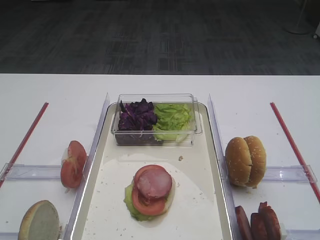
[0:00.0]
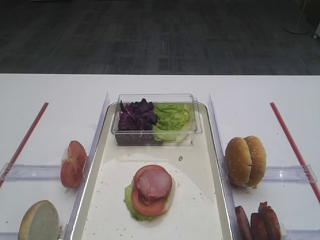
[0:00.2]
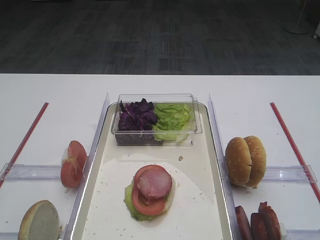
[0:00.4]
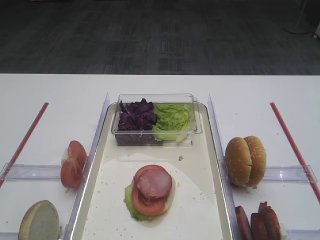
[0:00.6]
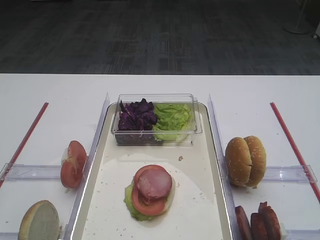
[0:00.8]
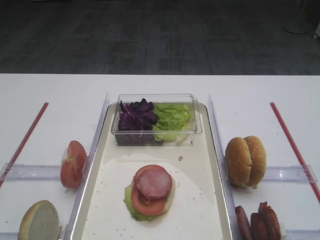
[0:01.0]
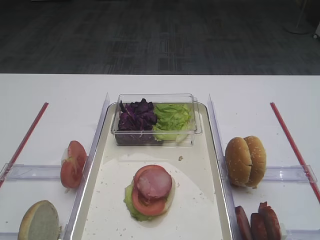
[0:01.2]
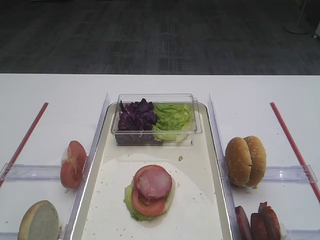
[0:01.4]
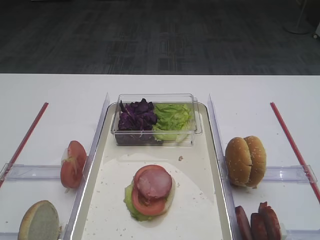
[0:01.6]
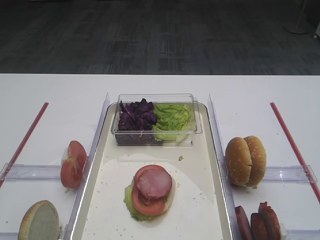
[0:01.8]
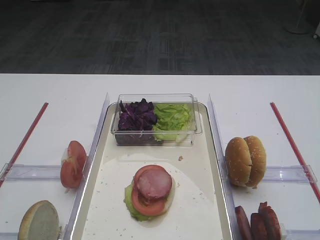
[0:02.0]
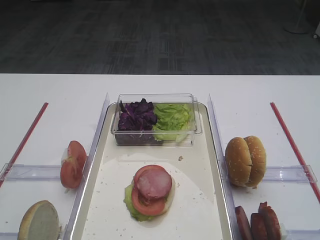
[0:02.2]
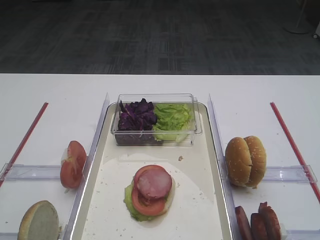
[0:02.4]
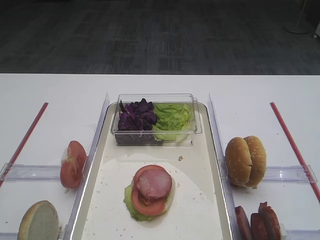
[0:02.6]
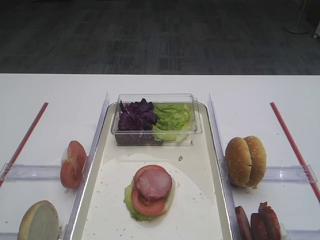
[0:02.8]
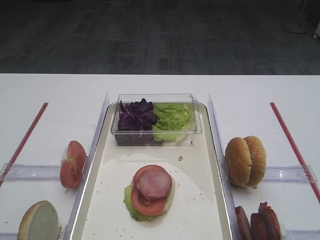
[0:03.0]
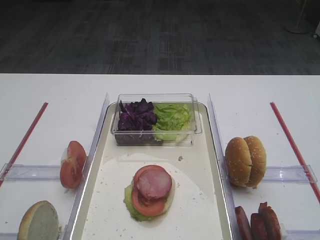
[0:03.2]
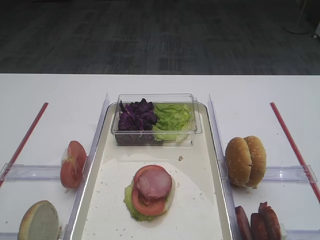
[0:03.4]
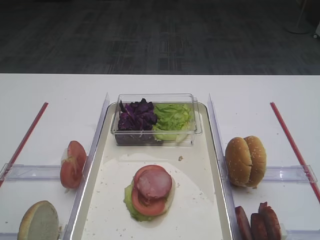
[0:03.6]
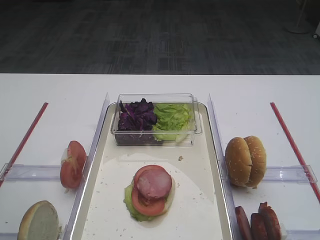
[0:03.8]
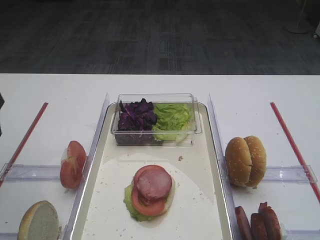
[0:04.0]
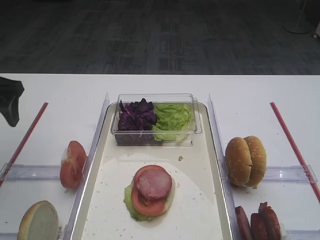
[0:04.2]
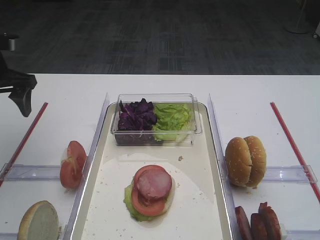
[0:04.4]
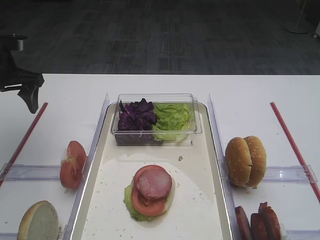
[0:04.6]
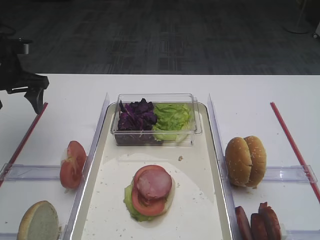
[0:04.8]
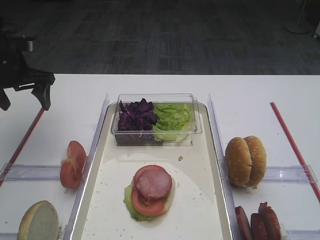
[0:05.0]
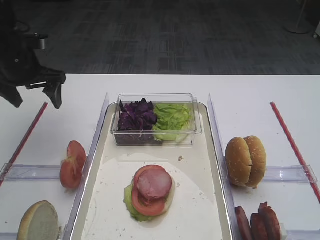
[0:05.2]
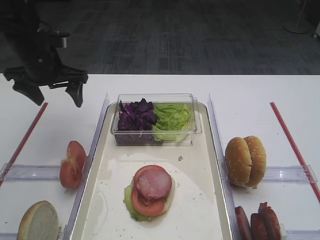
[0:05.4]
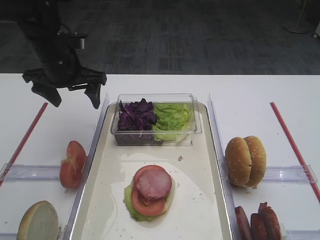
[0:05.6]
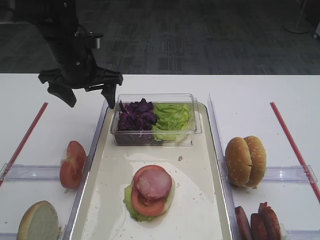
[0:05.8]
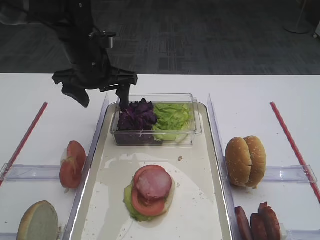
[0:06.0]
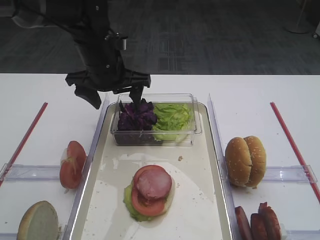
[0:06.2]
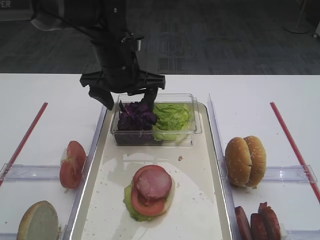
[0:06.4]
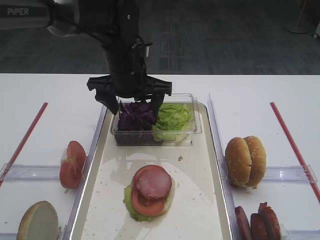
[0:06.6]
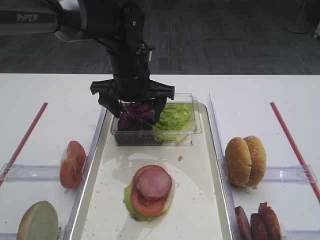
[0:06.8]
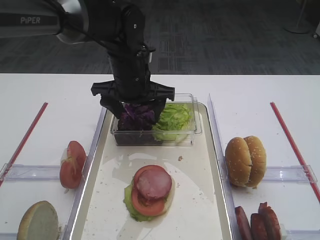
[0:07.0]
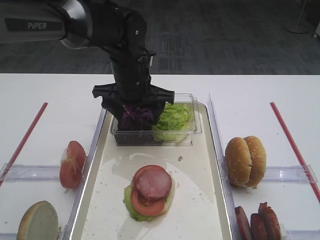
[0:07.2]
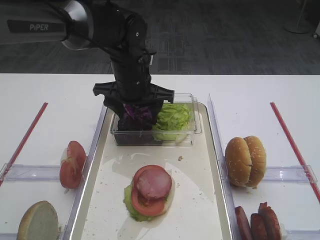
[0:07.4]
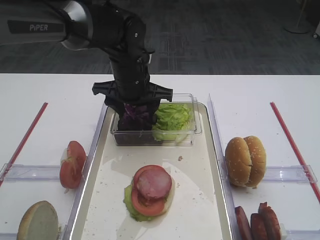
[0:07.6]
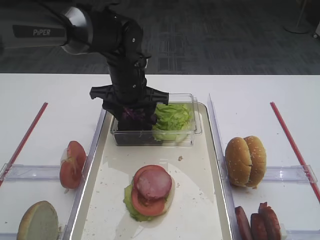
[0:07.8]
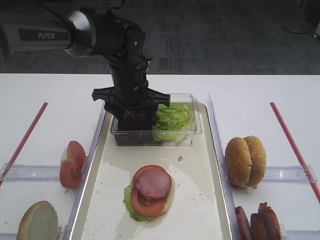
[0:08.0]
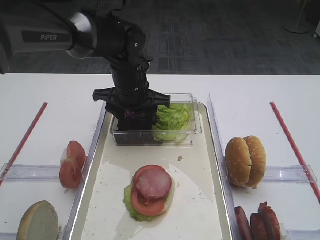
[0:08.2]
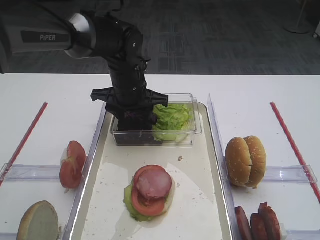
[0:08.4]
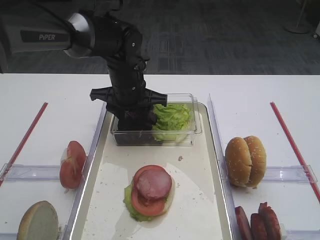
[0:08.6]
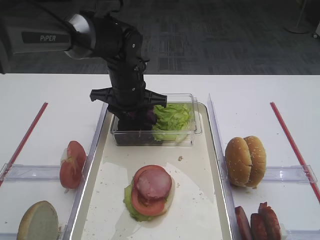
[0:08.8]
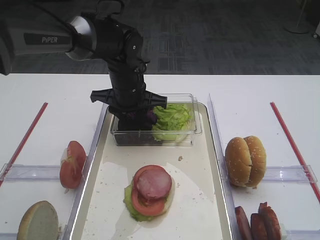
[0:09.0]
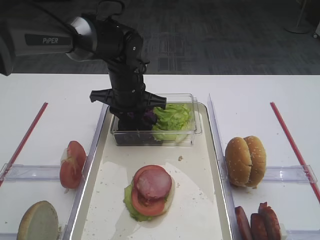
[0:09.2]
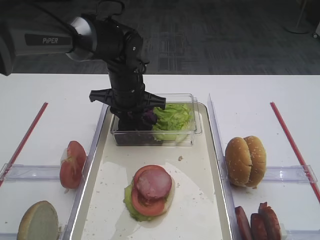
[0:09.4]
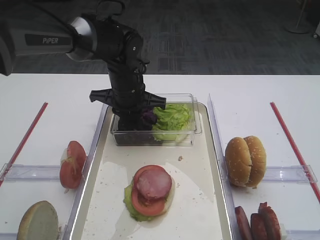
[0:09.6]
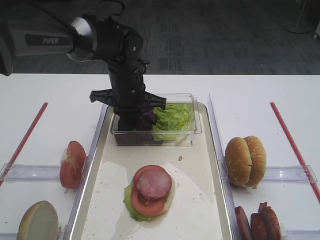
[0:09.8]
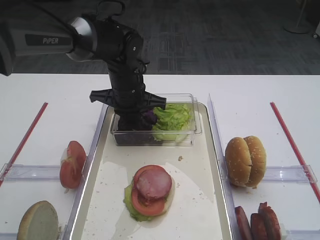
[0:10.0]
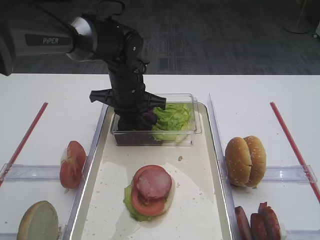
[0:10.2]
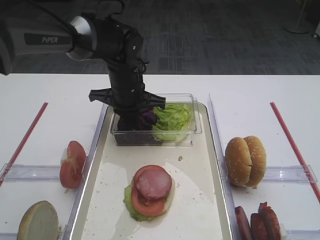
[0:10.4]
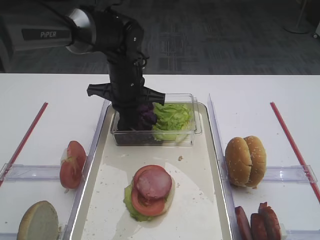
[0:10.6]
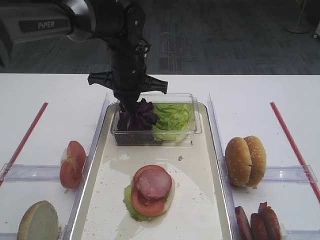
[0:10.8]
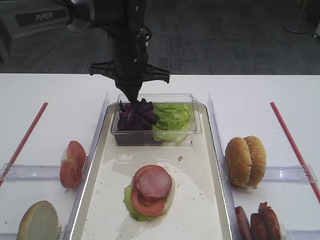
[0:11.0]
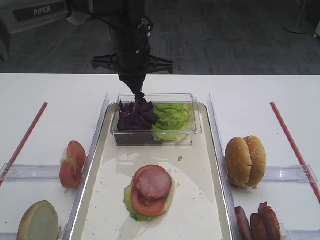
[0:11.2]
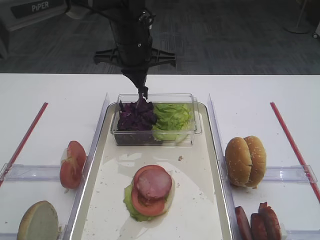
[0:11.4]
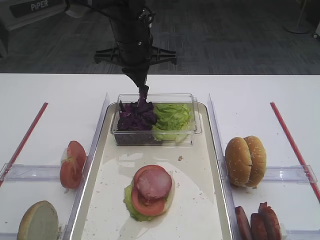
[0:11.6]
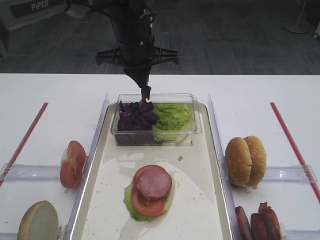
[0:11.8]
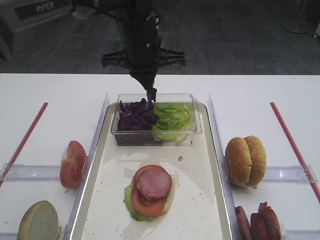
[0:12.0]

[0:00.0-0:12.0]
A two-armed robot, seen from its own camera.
0:03.0 to 0:04.4: The left gripper is displaced forward by approximately 30 cm.
0:04.4 to 0:06.0: The left gripper travels to the right by about 15 cm.
0:06.0 to 0:07.6: The left gripper moves to the right, approximately 5 cm.
0:07.6 to 0:09.0: The grippers stay close to where they were, moving slightly.
0:10.4 to 0:12.0: The left gripper heads upward, covering some 10 cm.

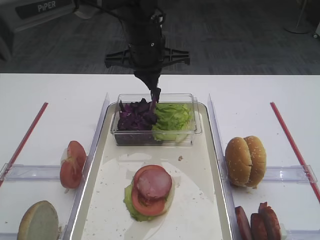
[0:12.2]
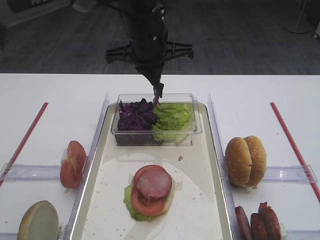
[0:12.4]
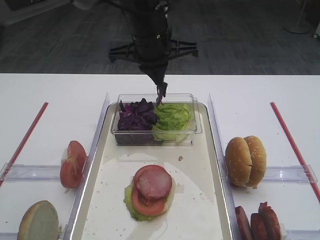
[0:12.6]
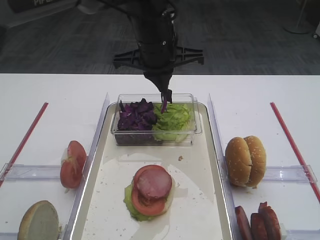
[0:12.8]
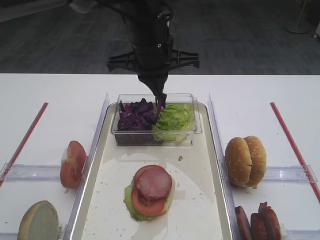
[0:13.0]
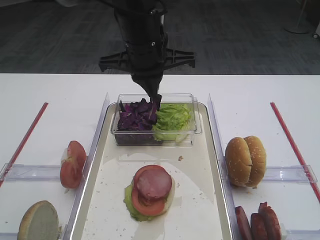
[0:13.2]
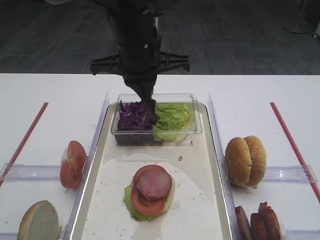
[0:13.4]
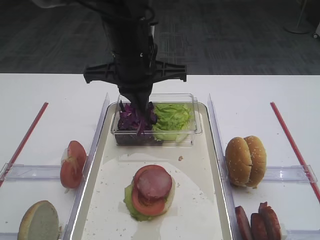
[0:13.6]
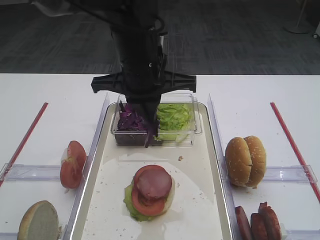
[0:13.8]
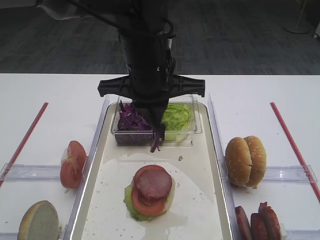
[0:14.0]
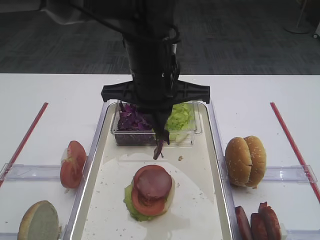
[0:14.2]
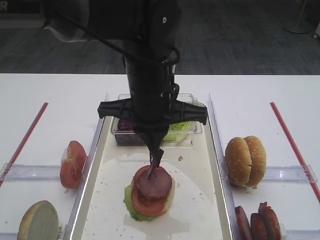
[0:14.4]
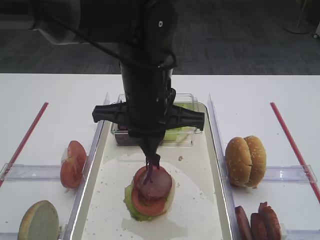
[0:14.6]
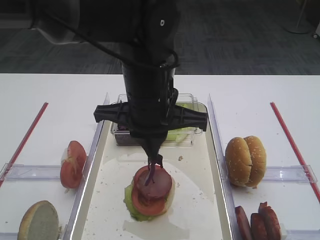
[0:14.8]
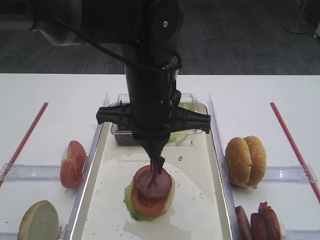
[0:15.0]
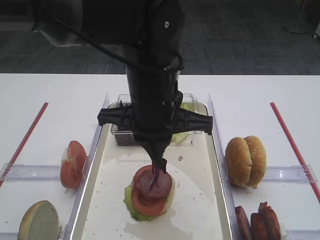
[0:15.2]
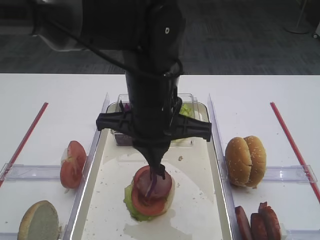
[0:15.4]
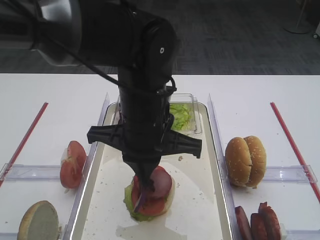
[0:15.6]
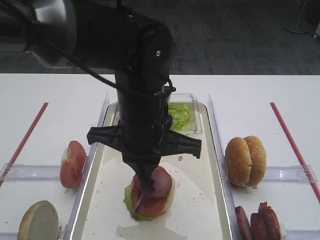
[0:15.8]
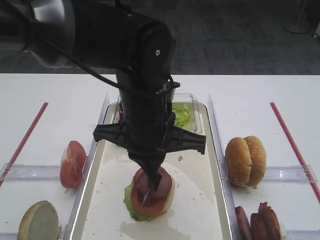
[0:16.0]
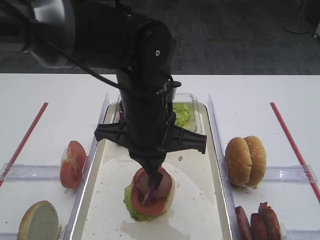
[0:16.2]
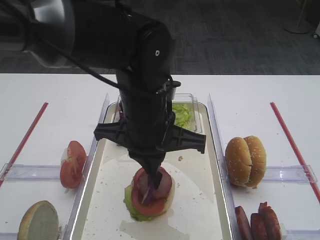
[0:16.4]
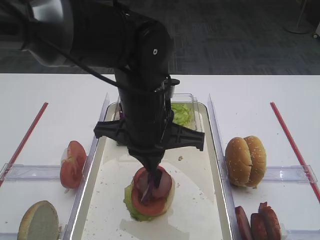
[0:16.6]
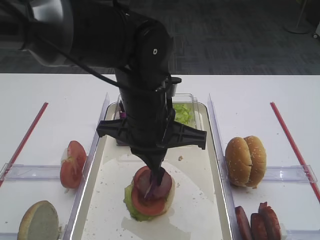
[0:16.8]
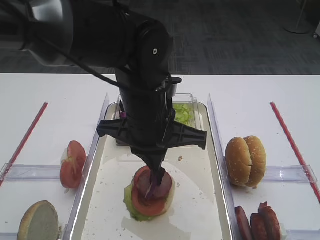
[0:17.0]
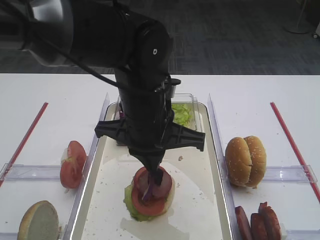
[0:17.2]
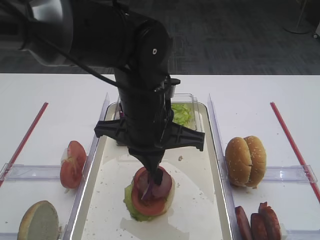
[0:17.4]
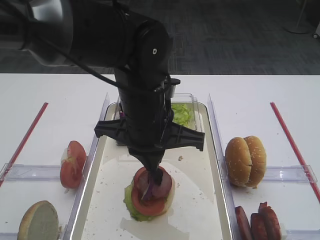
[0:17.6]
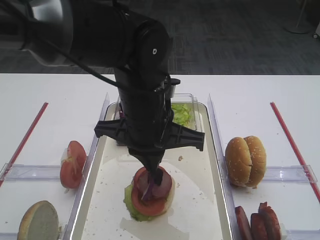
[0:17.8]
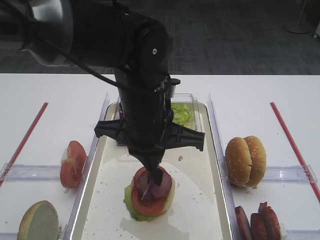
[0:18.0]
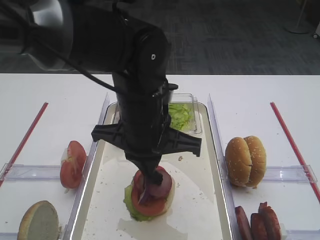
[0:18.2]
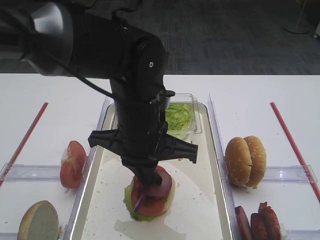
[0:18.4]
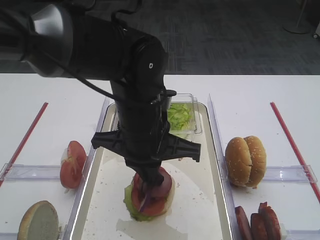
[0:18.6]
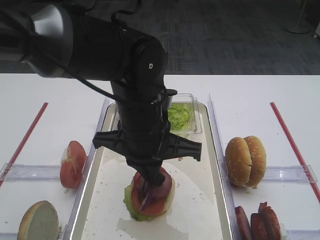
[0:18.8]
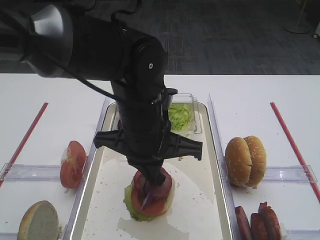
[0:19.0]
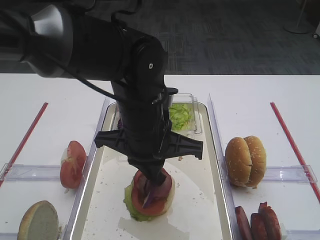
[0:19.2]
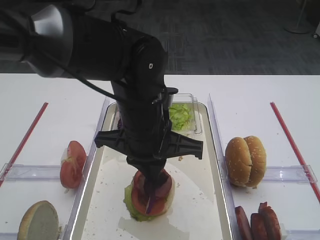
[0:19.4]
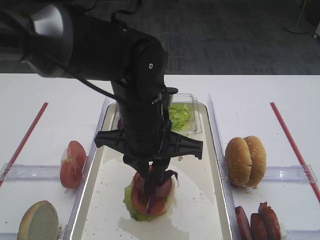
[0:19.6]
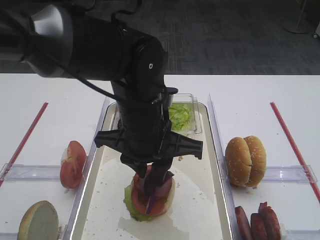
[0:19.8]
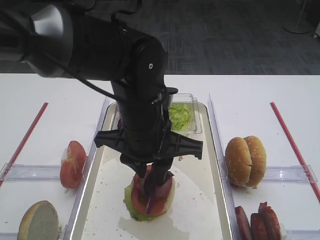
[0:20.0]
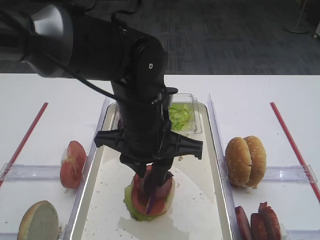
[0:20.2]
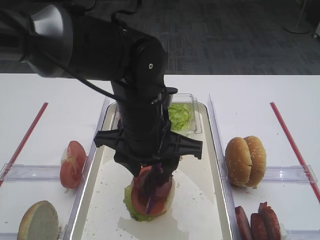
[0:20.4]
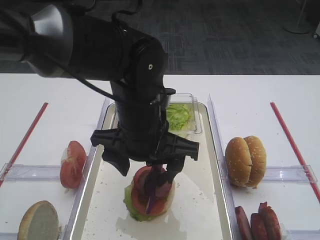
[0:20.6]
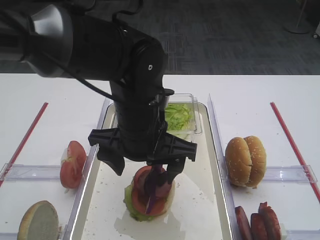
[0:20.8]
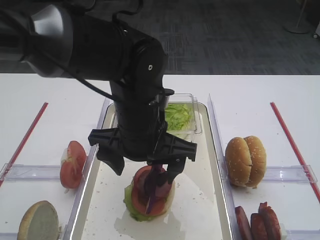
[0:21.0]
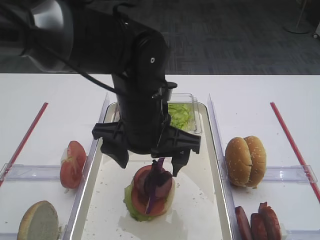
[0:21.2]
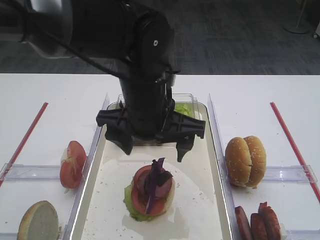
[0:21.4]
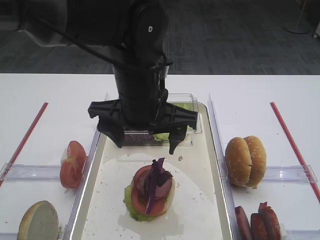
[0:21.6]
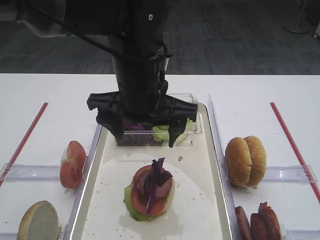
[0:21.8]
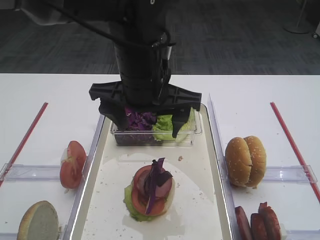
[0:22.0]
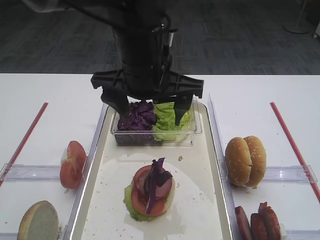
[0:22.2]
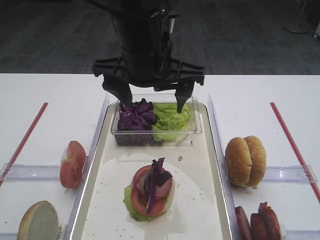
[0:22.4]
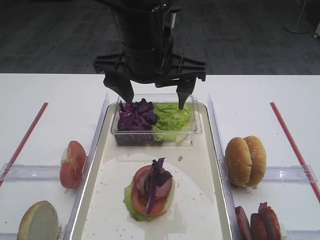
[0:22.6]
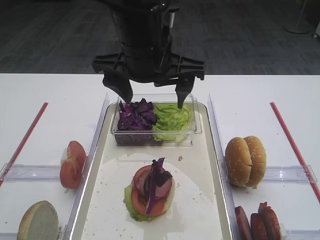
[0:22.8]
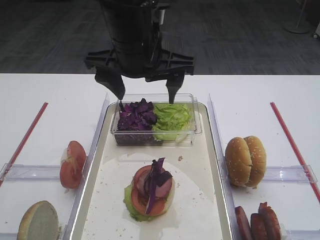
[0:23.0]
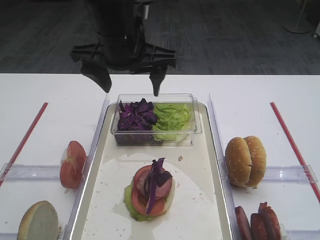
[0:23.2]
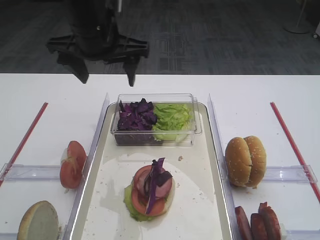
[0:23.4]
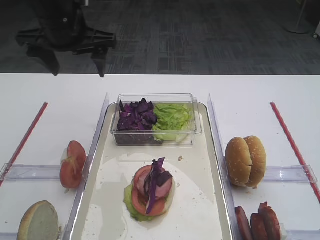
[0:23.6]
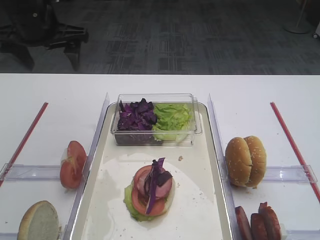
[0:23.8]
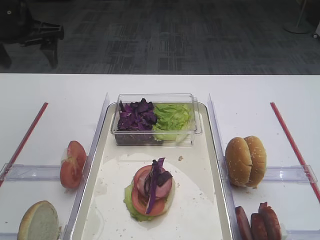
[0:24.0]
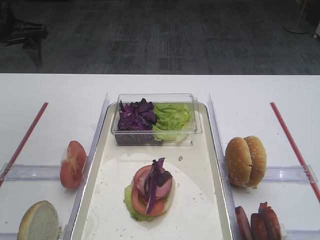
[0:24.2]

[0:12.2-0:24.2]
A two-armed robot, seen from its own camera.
Step, 0:12.4 to 0:21.0: Place the purple cabbage on the cutlet with the left gripper.
0:12.2 to 0:13.8: The left gripper goes about 10 cm backward.
0:13.8 to 0:15.2: The left gripper heads backward, covering some 5 cm.
0:15.2 to 0:16.6: The grippers move only a little.
0:16.6 to 0:18.2: Neither gripper changes place.
0:18.2 to 0:19.8: The left gripper opens up.
0:19.8 to 0:21.2: The left gripper opens its fingers.
0:21.2 to 0:22.6: The left gripper heads upward, covering about 10 cm.
0:22.6 to 0:24.2: The left gripper heads to the left, covering approximately 25 cm.
